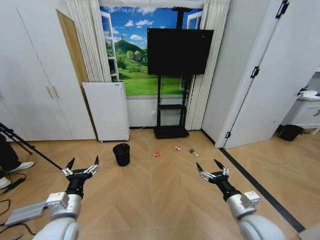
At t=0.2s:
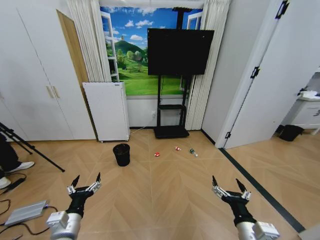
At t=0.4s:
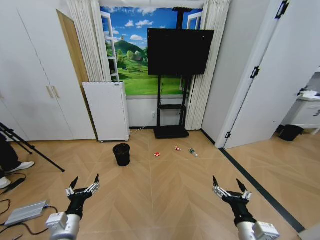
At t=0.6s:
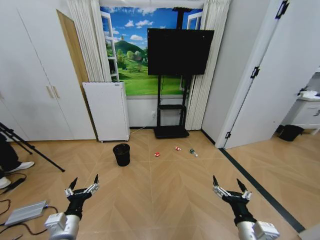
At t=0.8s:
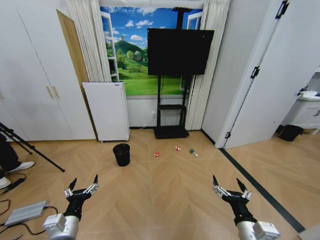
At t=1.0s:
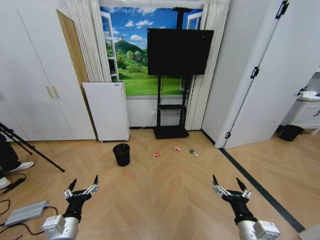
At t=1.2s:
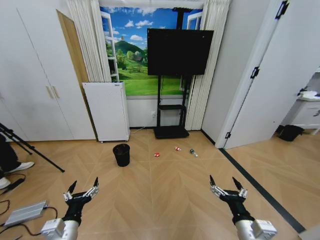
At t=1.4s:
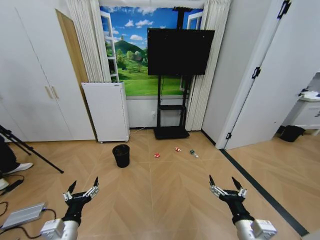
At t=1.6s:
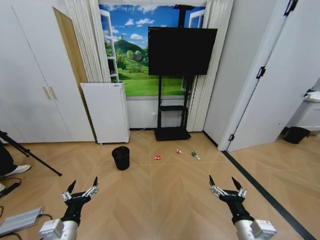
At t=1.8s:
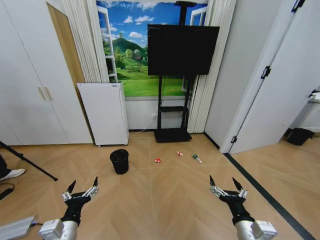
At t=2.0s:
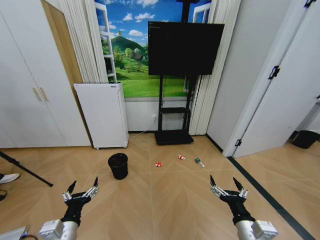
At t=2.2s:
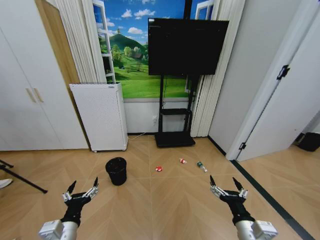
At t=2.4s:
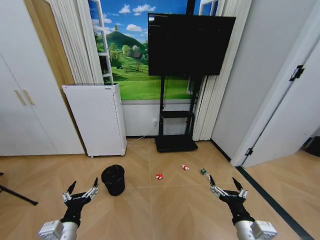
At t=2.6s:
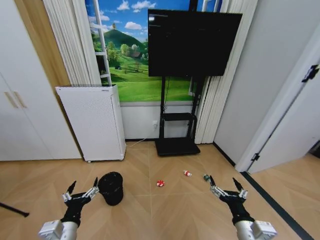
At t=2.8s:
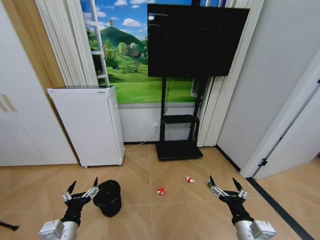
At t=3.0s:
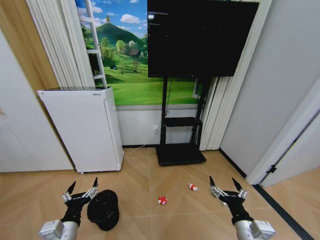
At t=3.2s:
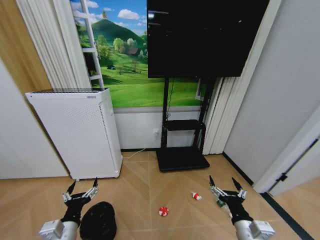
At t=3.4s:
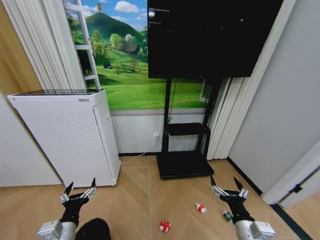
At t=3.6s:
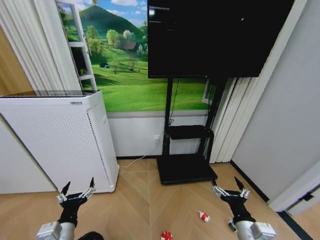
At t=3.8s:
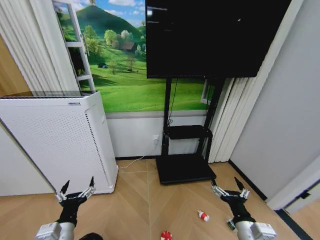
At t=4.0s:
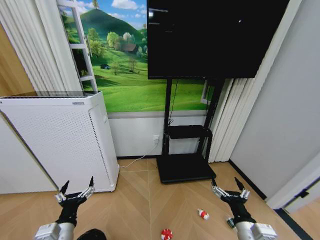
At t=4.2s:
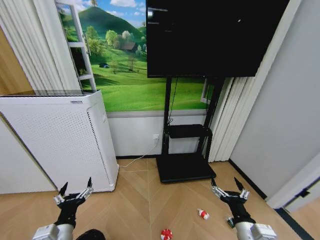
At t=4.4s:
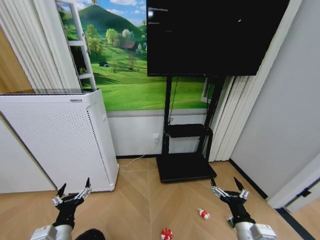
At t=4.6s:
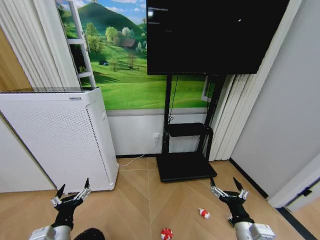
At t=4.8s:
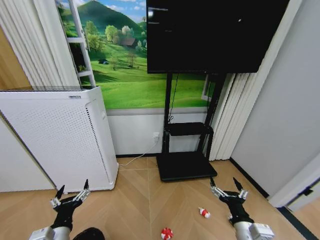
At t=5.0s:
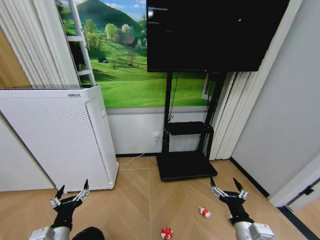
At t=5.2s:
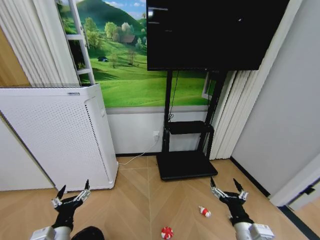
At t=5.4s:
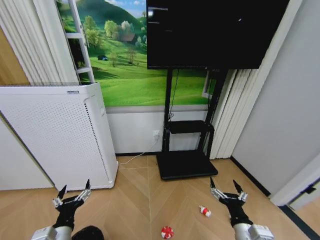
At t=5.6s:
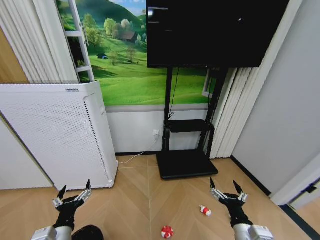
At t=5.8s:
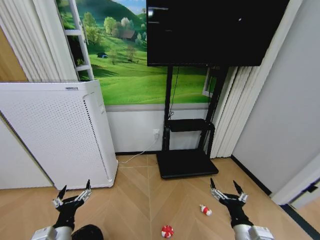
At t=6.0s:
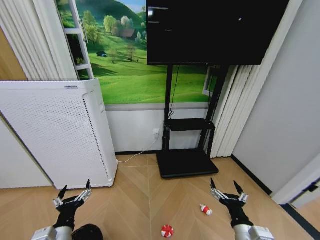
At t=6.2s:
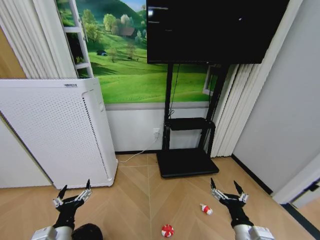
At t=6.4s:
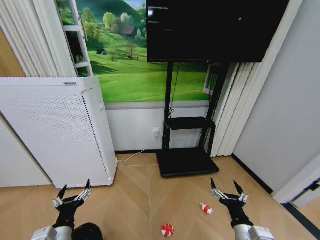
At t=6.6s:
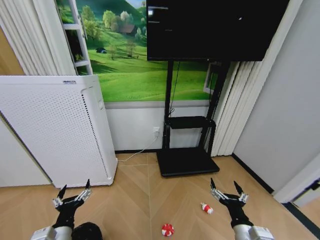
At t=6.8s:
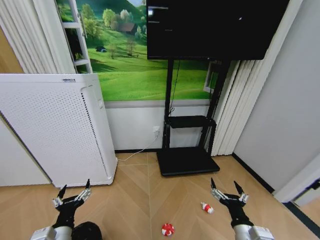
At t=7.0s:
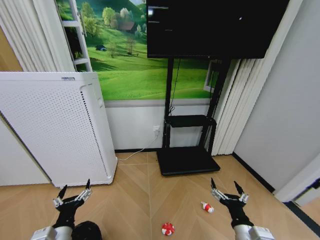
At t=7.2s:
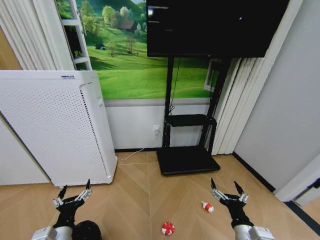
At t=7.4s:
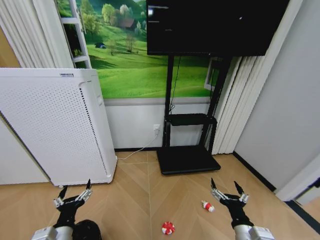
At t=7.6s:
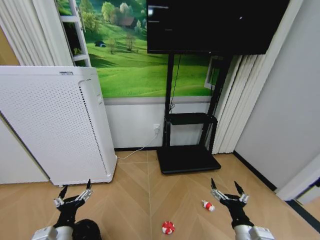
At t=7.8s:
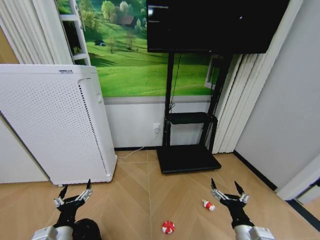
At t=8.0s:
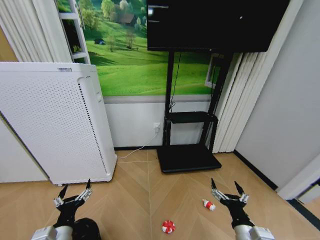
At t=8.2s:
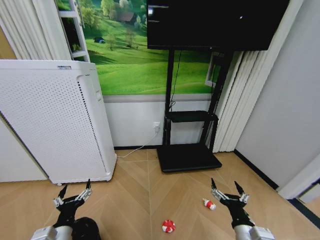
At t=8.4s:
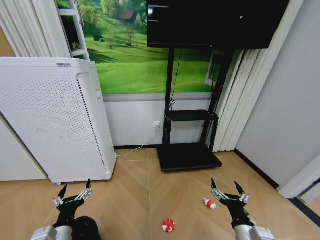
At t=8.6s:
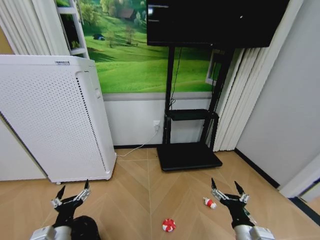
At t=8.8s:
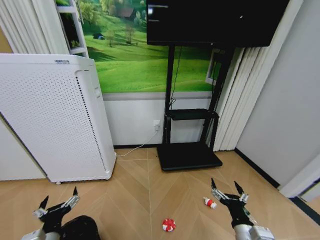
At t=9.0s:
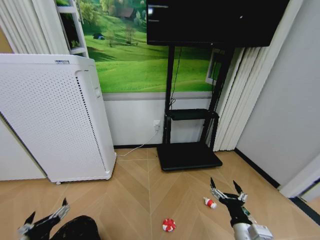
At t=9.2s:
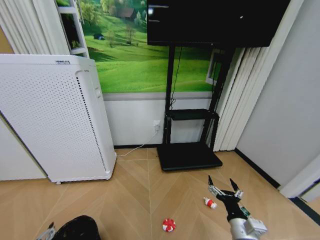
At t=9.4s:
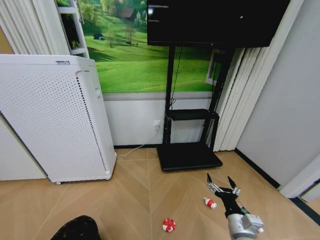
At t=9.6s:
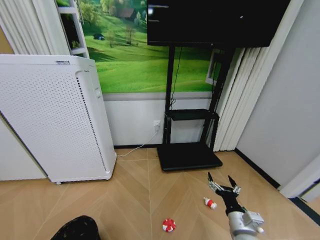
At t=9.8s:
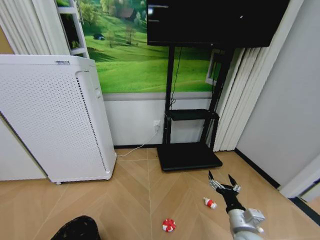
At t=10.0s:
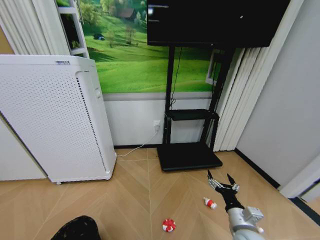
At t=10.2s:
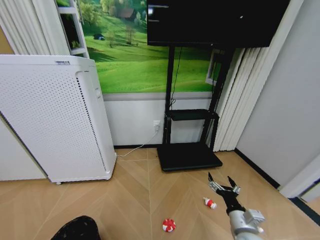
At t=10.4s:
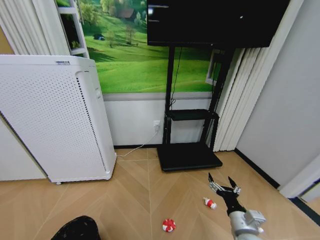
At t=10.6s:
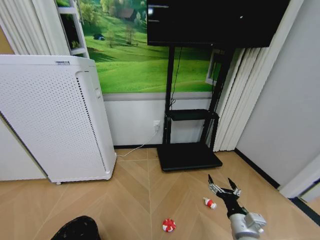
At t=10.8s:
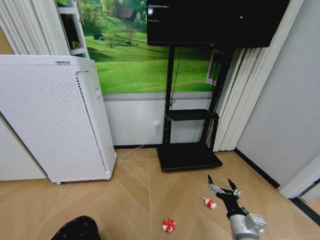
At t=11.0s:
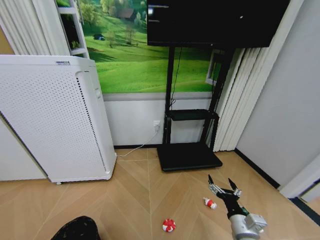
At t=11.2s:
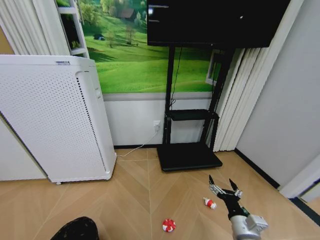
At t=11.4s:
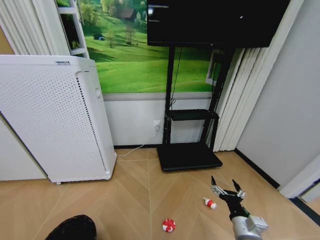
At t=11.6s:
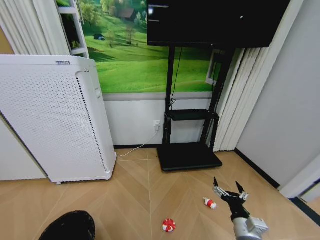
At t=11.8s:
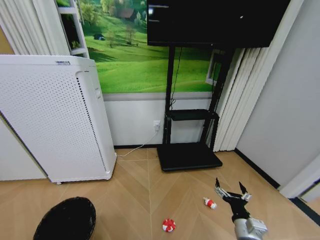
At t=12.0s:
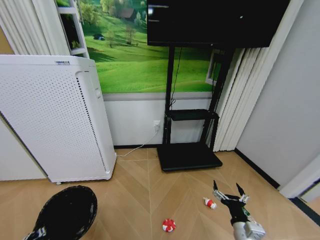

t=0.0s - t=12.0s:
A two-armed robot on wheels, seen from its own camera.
Task of the whole recording: Pick up the trash bin and place the garbage on the floor into it.
t=4.4s - t=7.6s: The two grippers keep their place.
t=7.6s - t=9.0s: The left gripper ends up about 5 cm from where it was.
t=9.0s - t=10.4s: The left gripper moves downward and backward, roughly 15 cm.
t=10.4s - t=12.0s: The left gripper closes up.

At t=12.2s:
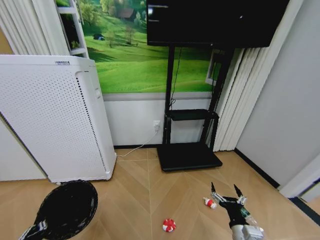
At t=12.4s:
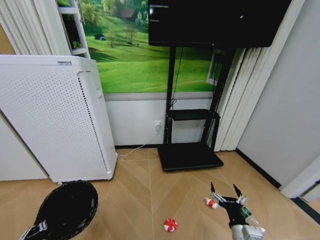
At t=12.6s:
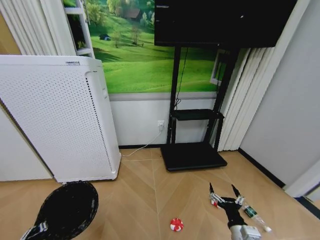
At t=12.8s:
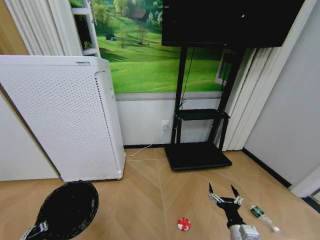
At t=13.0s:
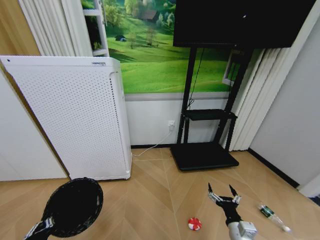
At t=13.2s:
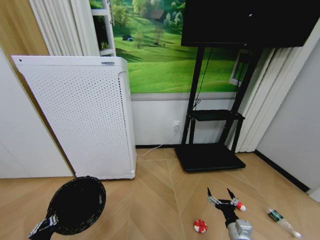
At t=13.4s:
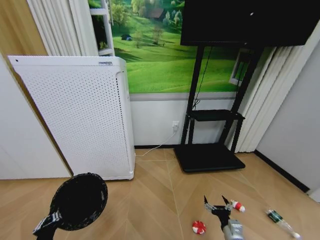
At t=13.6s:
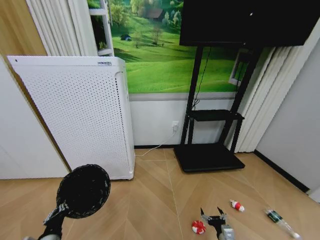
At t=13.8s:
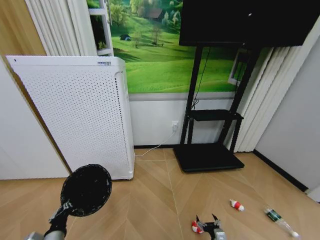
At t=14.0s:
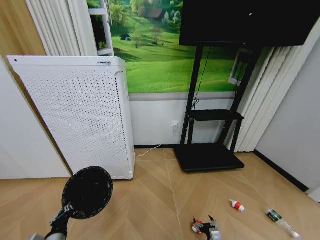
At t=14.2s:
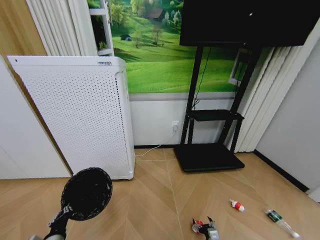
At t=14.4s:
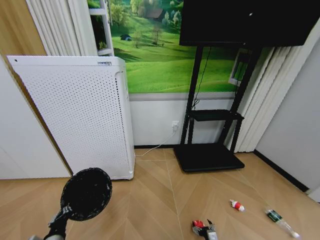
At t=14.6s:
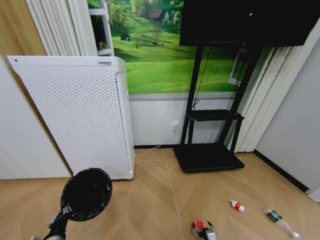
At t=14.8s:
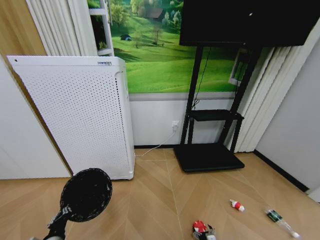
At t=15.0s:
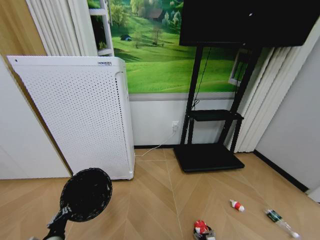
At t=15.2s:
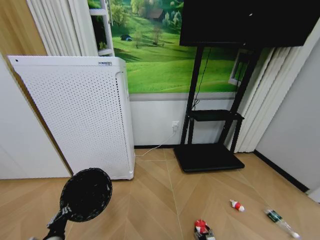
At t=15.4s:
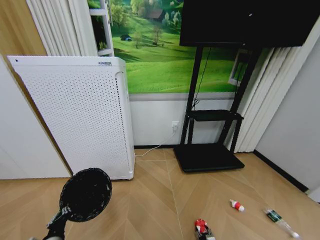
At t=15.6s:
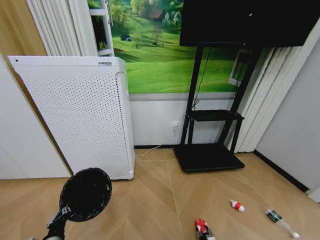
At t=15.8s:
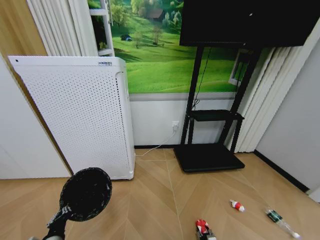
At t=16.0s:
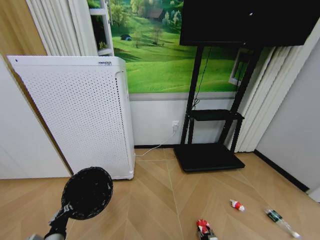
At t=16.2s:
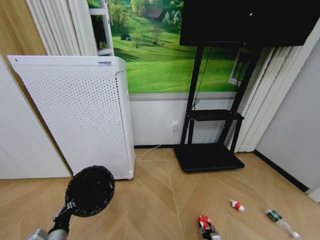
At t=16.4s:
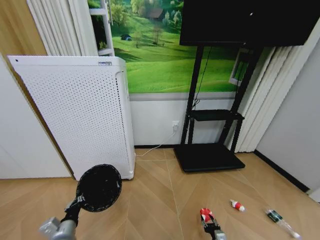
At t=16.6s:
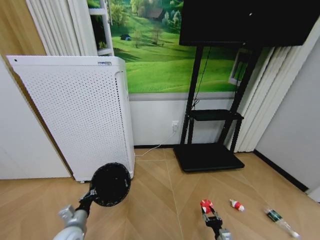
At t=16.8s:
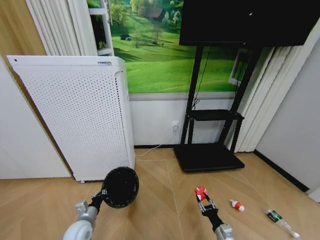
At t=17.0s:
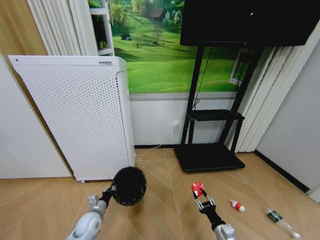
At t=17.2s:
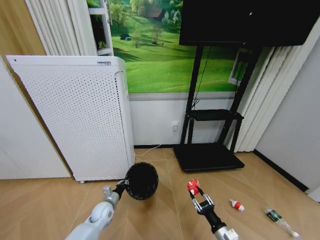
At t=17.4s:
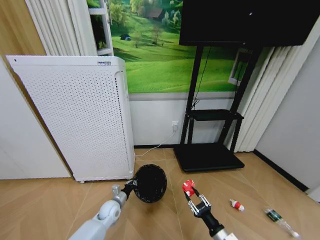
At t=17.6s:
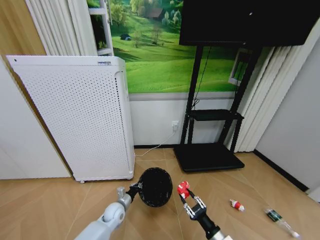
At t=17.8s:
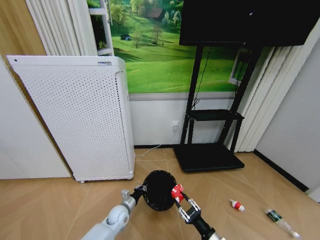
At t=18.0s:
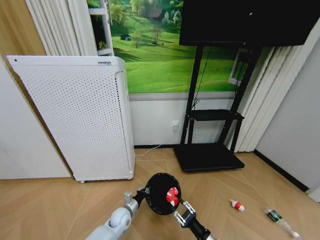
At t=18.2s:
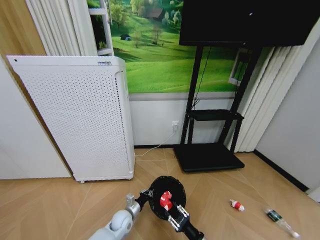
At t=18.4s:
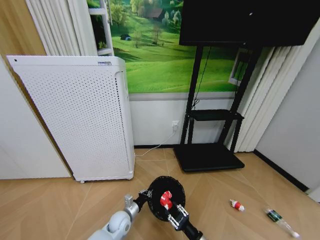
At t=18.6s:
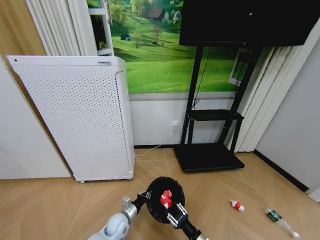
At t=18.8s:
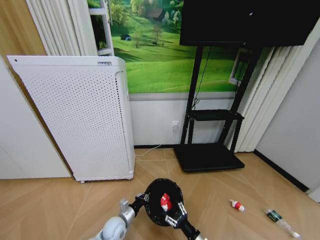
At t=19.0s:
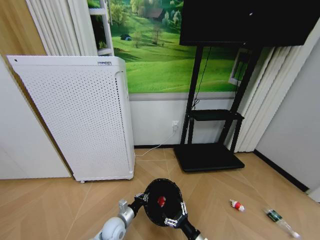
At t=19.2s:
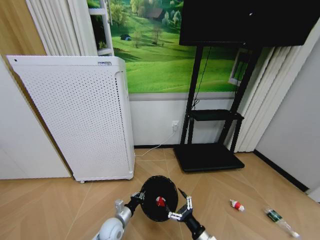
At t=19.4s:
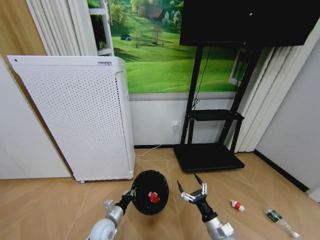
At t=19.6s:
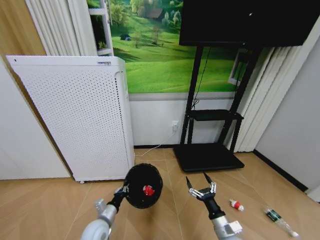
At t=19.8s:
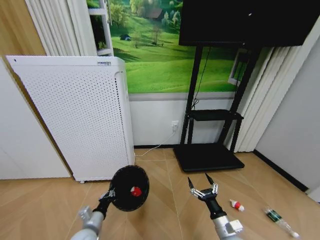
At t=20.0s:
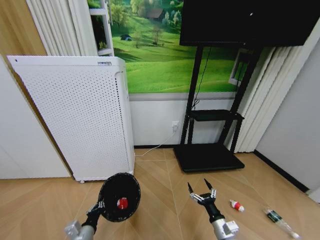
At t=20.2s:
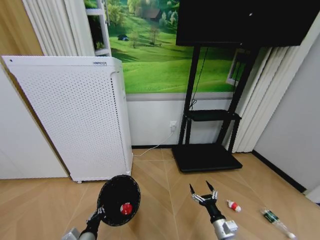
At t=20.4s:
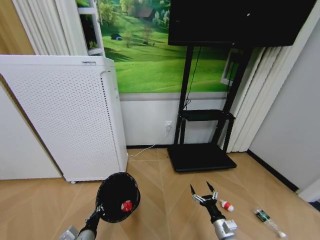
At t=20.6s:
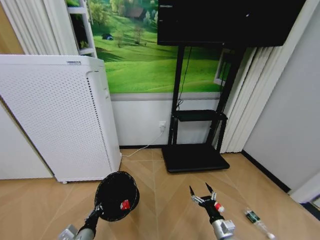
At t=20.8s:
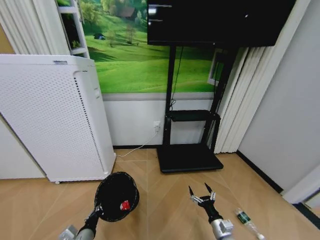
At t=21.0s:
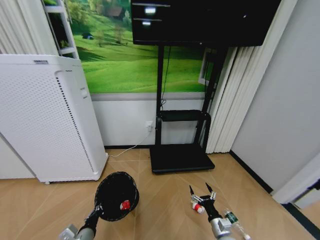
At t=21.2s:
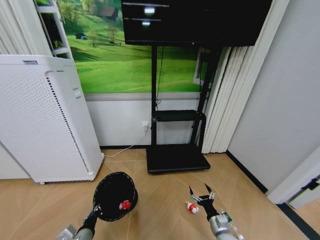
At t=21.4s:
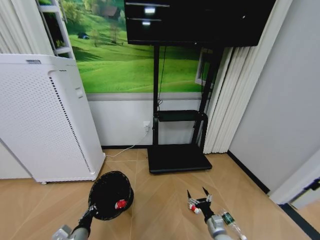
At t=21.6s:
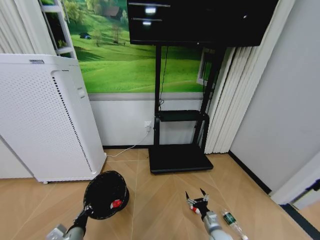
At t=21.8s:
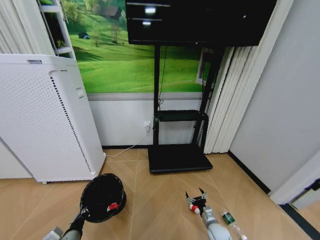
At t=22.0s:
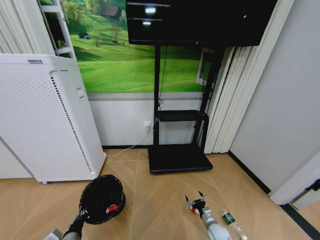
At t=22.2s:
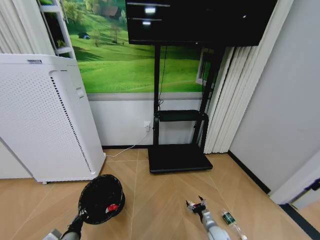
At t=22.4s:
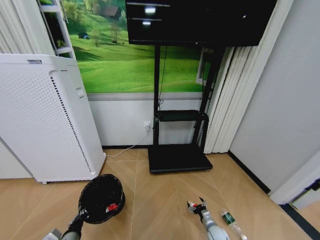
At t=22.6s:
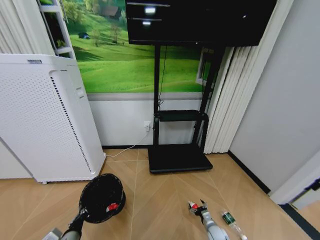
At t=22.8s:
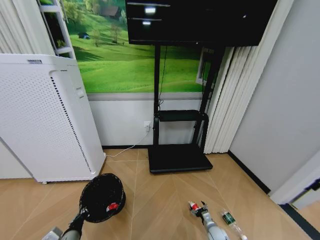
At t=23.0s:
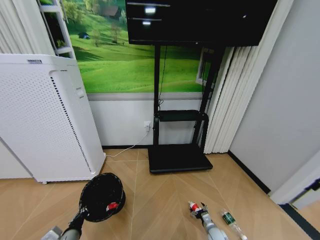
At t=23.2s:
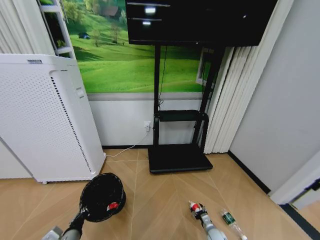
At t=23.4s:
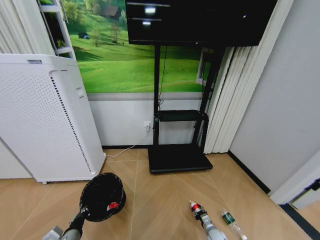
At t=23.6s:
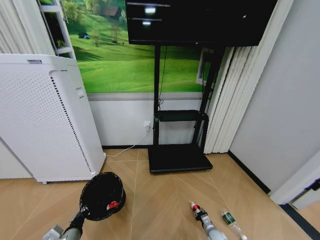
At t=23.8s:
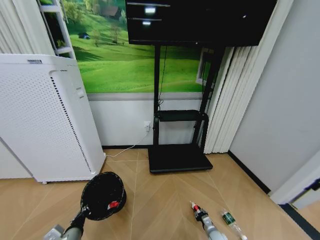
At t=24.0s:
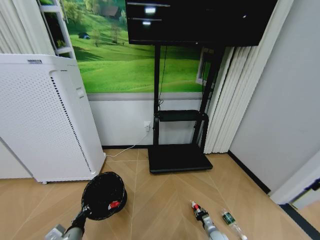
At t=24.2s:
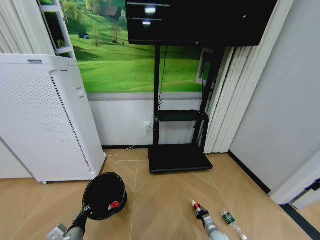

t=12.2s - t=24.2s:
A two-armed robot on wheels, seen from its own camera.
Task of the whole recording: Pick up the trash bin and place the garbage on the floor into it.
t=12.2s - t=13.8s: The left gripper is displaced forward by roughly 5 cm. Meanwhile the right gripper goes some 20 cm downward.
t=13.8s - t=15.2s: The right gripper heads downward, covering some 10 cm.
t=15.2s - t=16.6s: The left gripper shifts some 5 cm forward; the right gripper goes approximately 5 cm upward, and closes up.
t=16.6s - t=18.2s: The left gripper travels to the right, forward and downward by approximately 25 cm. Meanwhile the right gripper is displaced upward and to the left by roughly 15 cm.
t=18.2s - t=19.8s: The right gripper changes place by about 10 cm, and opens its fingers. Meanwhile the left gripper shifts approximately 20 cm to the left, backward and upward.
t=19.8s - t=21.2s: The right gripper shifts some 5 cm downward. Meanwhile the left gripper changes place by roughly 5 cm.
t=21.2s - t=22.6s: The right gripper travels downward and forward by roughly 15 cm.
t=22.6s - t=24.2s: The right gripper closes up.
